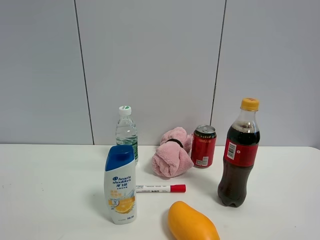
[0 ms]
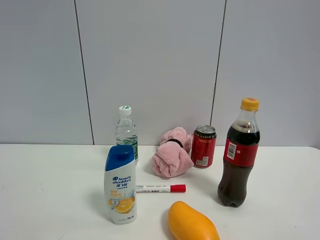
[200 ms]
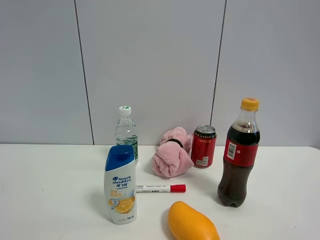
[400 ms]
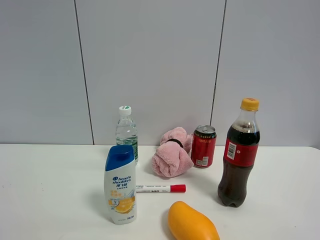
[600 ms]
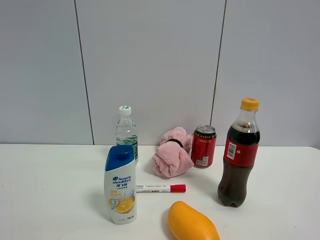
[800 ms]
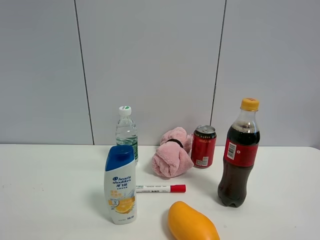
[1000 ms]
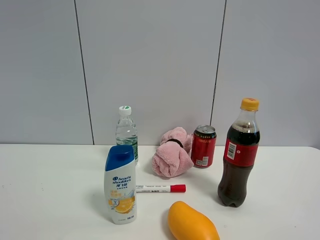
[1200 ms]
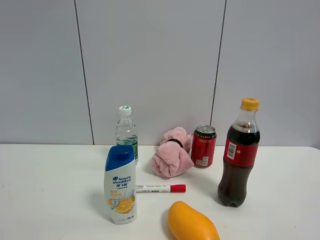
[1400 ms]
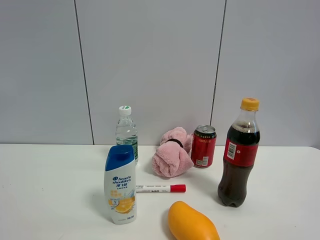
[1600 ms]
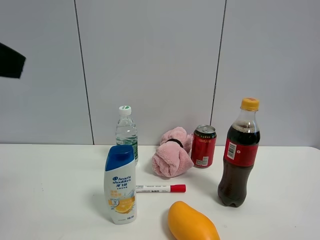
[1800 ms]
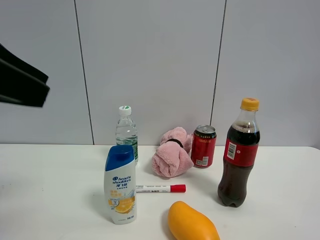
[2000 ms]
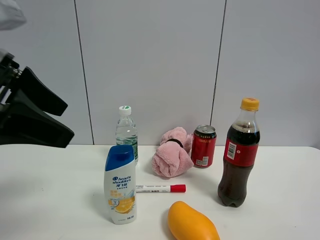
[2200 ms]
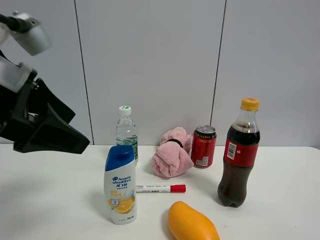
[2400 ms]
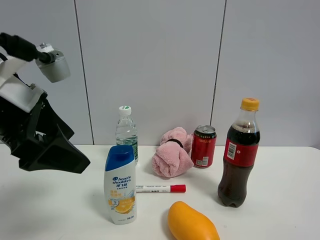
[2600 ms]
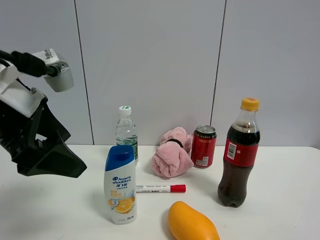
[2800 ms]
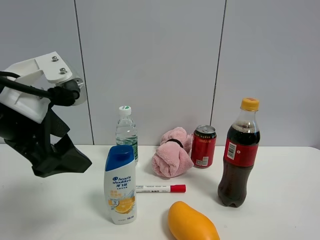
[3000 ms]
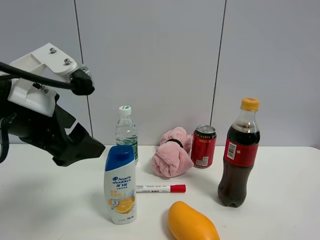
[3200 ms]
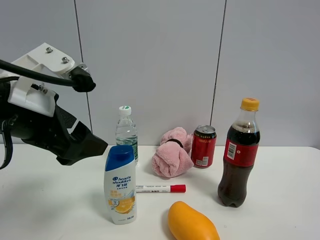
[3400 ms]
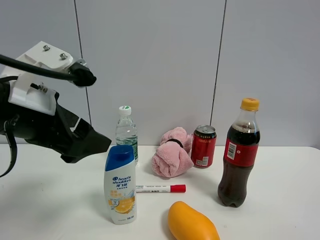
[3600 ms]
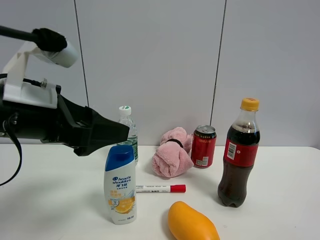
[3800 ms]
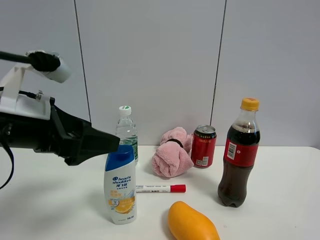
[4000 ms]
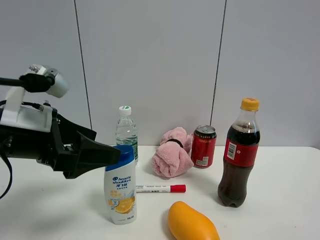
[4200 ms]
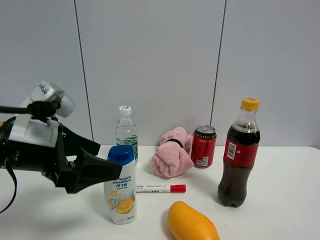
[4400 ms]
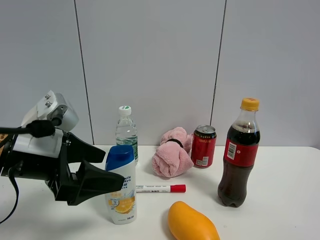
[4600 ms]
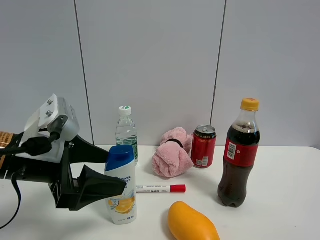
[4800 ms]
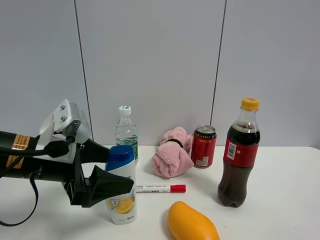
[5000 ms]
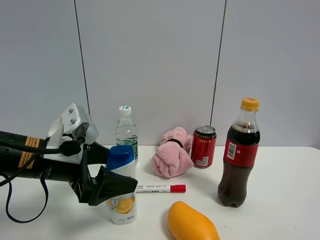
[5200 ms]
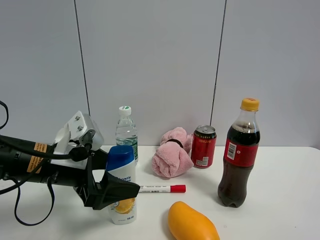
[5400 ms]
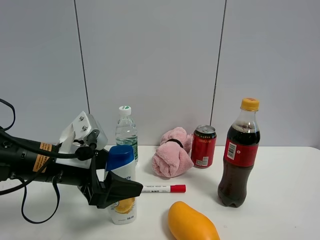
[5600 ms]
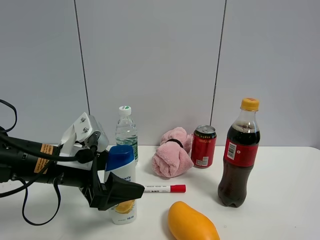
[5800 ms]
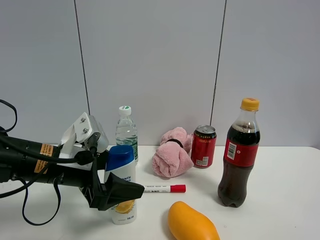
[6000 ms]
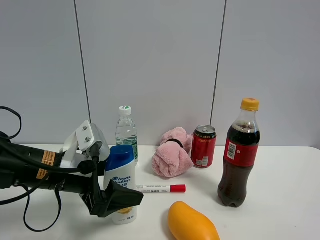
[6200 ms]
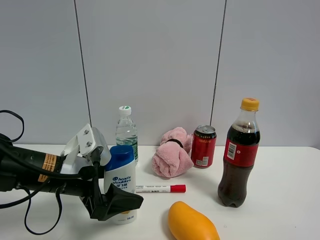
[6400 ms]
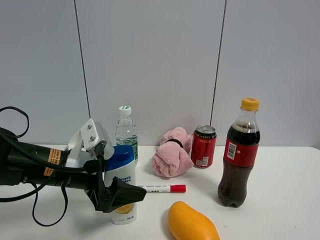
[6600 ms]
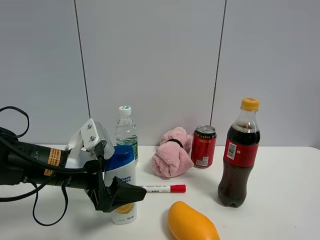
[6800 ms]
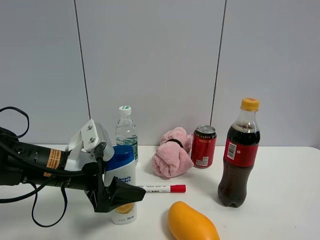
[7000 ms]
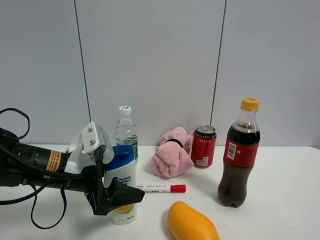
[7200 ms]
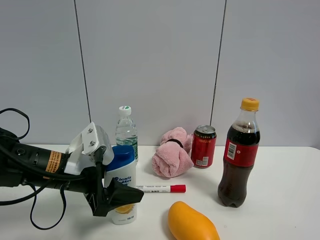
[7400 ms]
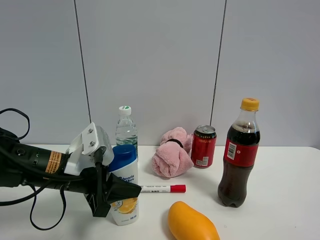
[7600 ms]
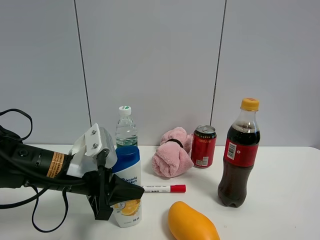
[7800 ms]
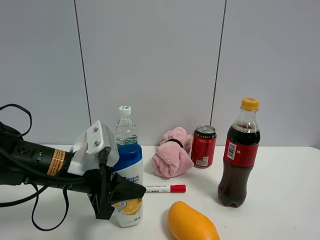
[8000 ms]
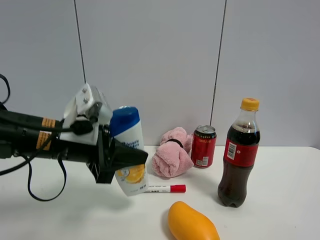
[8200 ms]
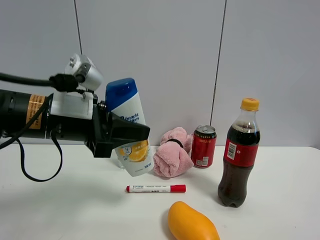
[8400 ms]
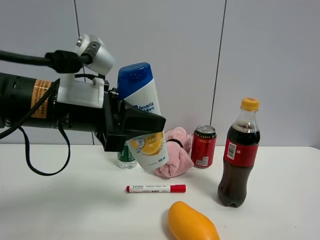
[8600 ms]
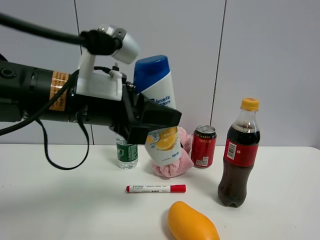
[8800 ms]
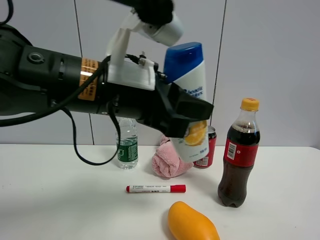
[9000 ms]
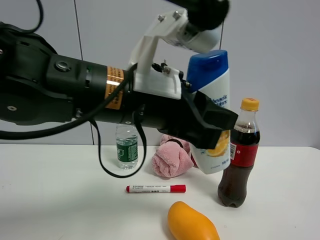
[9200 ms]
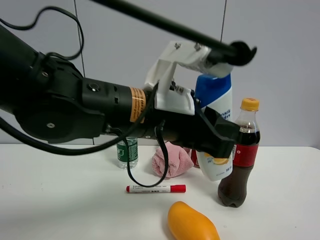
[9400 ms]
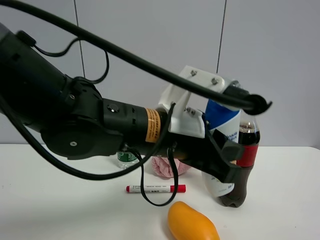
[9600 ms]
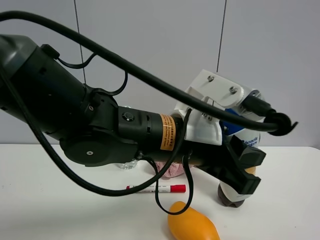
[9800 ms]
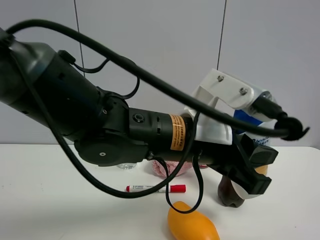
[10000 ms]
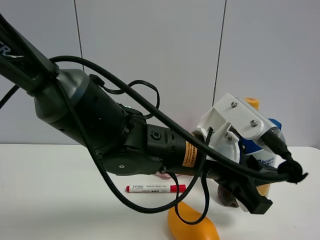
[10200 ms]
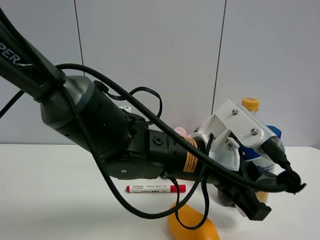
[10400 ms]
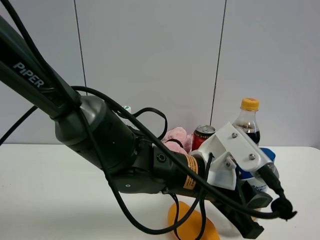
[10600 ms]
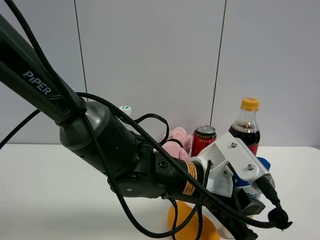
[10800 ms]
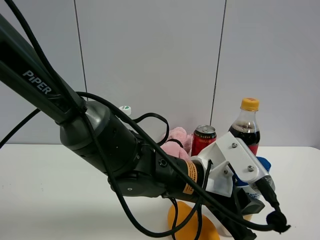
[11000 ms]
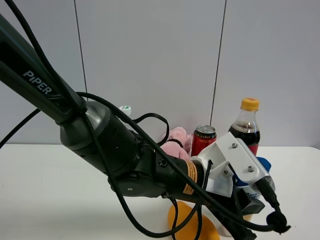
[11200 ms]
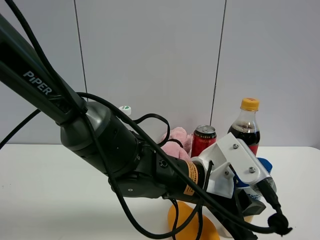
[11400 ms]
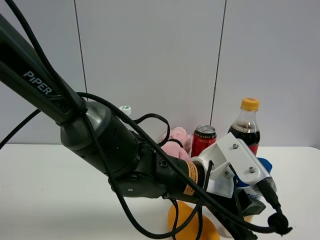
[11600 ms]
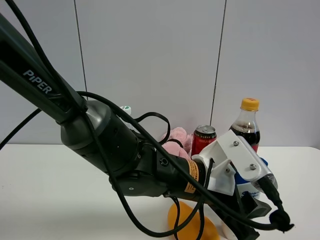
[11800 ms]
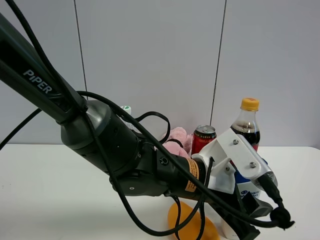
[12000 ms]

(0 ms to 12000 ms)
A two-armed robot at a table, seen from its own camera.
Task of the whole recording: the gripper move the object.
Step, 0 ms - 7600 ms: Grasp the shampoo with the left gripper.
1600 ms - 3000 ms: The left gripper moves downward, forward and to the right, roughly 15 cm.
3000 ms - 4400 ms: The left gripper shifts some 5 cm downward.
4400 ms - 6000 ms: The left gripper moves downward, about 5 cm.
6000 ms - 7600 ms: The left gripper closes.
7600 ms - 9000 ms: The left gripper travels upward and to the right by about 20 cm.
9000 ms - 10400 ms: The left gripper shifts roughly 15 cm downward and to the right.
10400 ms - 12000 ms: The left gripper opens its fingers.

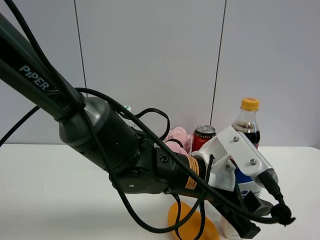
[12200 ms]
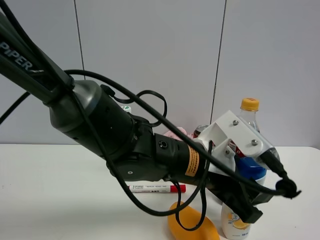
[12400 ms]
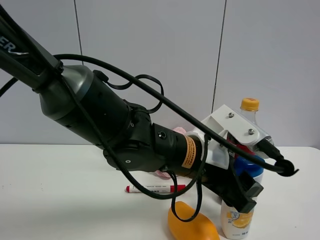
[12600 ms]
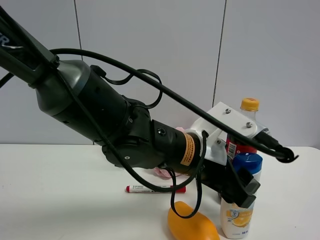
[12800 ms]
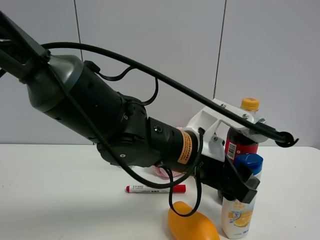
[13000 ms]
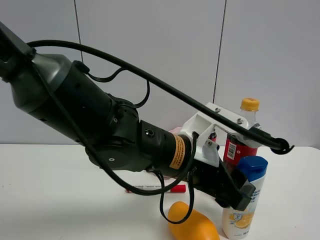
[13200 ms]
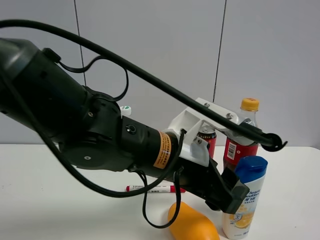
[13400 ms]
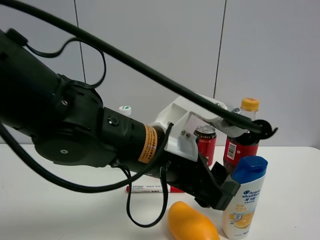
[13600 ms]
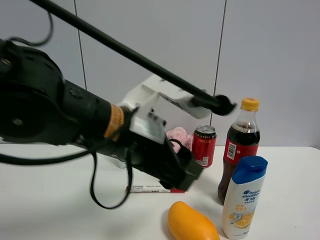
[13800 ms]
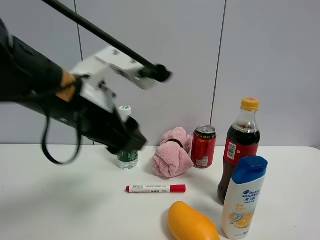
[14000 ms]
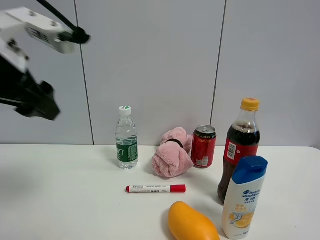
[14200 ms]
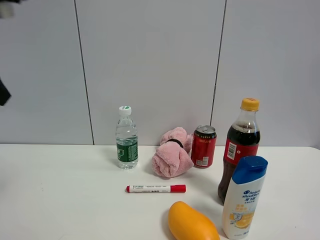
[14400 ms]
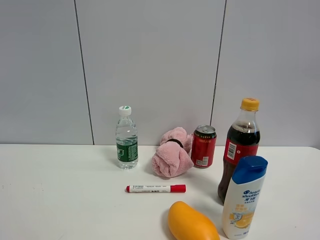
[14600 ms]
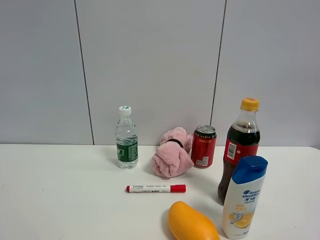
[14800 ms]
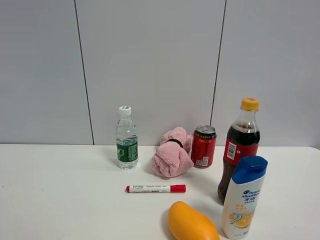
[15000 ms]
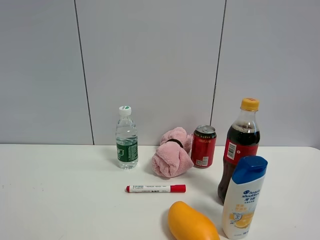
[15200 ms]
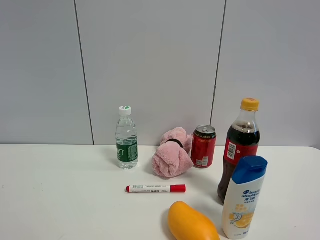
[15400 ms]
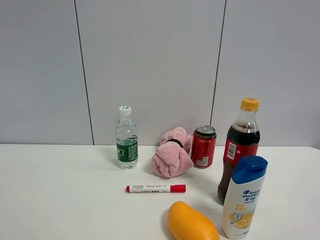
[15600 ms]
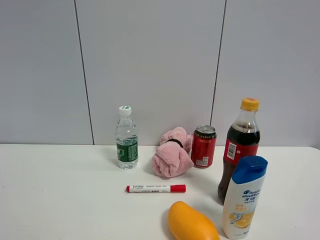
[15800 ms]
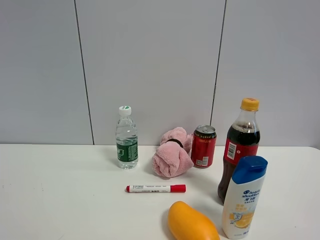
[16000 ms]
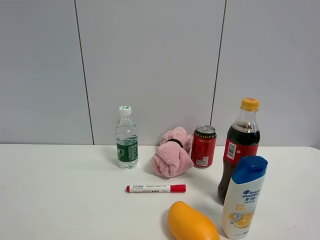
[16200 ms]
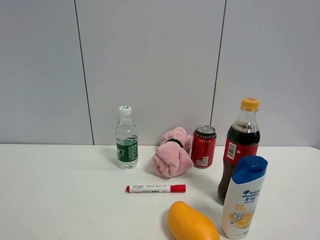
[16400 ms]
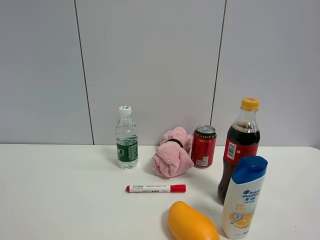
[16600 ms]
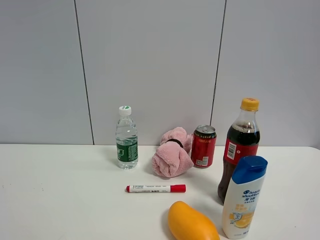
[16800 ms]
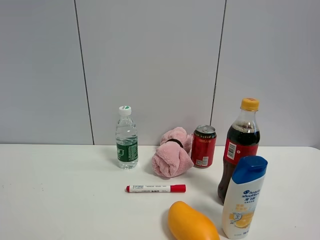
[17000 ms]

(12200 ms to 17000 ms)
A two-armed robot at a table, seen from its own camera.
Task of the whole recording: the gripper move the object.
12200 ms - 13800 ms: The left gripper goes about 15 cm to the left and upward.
13800 ms - 15400 ms: The left gripper travels to the left, backward and upward by approximately 35 cm.

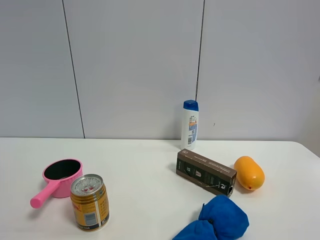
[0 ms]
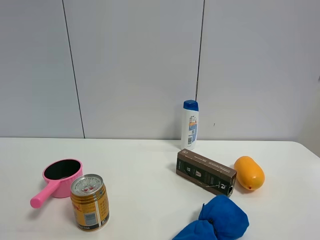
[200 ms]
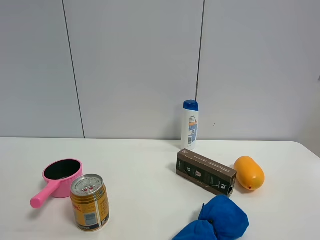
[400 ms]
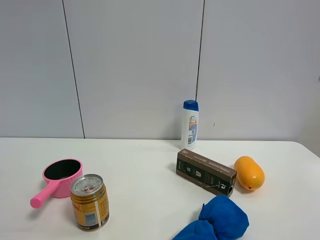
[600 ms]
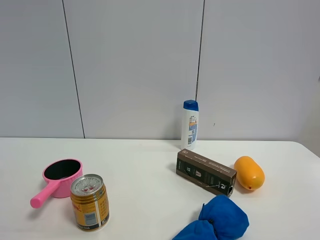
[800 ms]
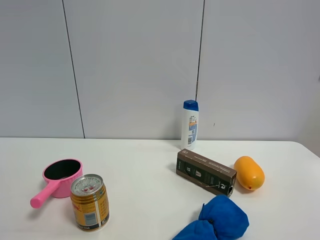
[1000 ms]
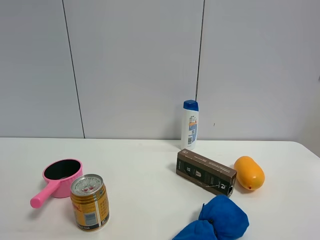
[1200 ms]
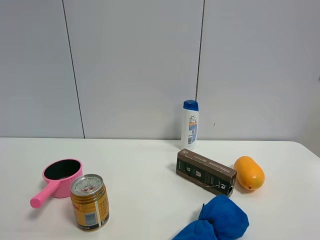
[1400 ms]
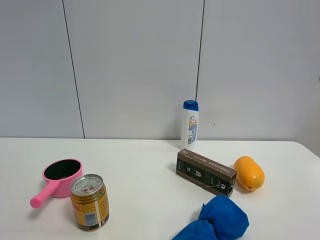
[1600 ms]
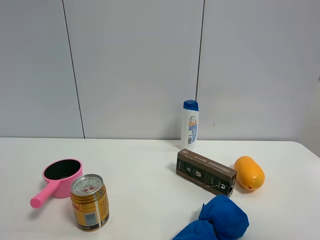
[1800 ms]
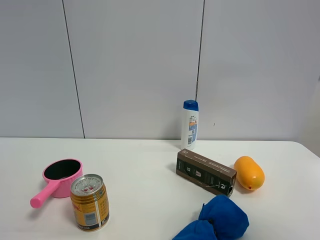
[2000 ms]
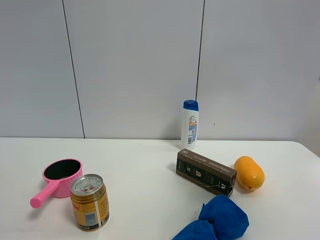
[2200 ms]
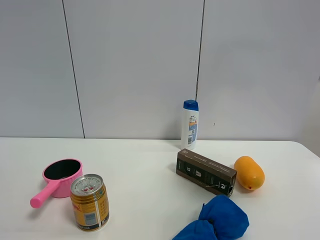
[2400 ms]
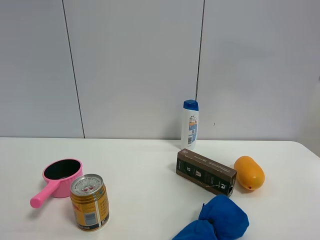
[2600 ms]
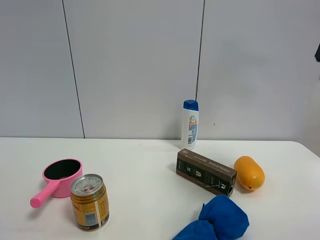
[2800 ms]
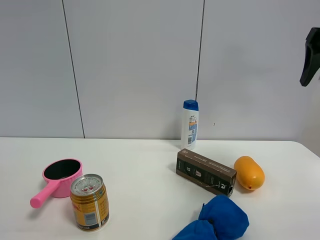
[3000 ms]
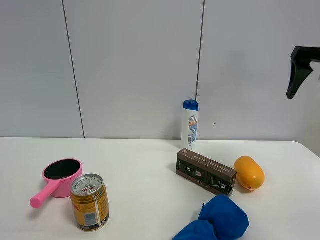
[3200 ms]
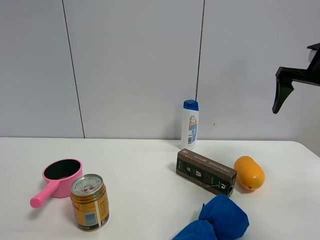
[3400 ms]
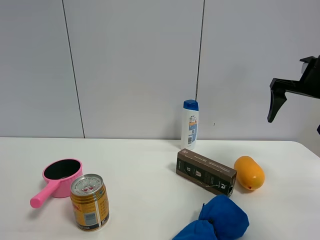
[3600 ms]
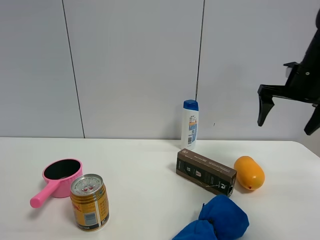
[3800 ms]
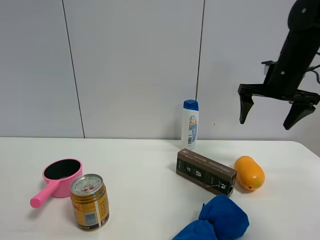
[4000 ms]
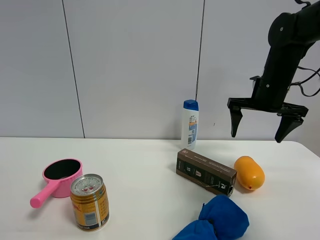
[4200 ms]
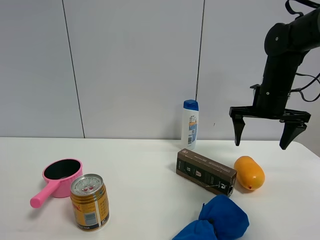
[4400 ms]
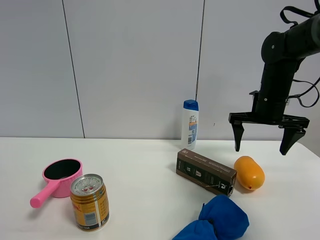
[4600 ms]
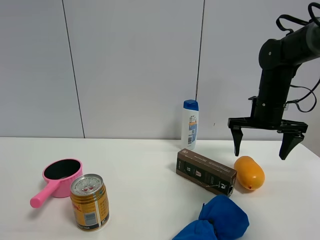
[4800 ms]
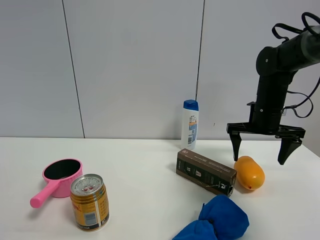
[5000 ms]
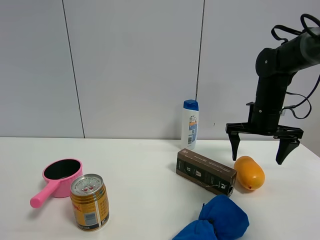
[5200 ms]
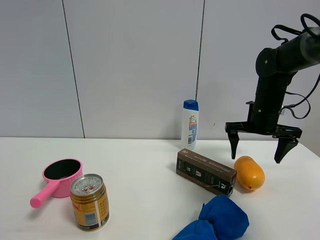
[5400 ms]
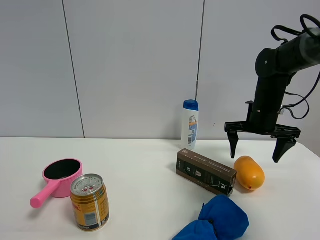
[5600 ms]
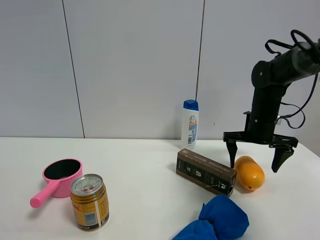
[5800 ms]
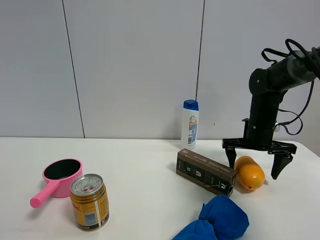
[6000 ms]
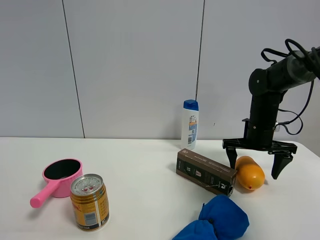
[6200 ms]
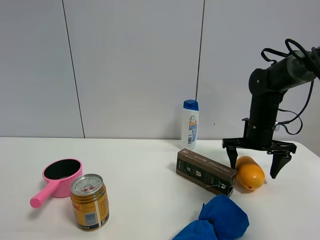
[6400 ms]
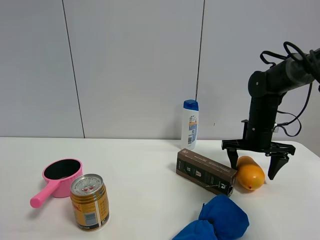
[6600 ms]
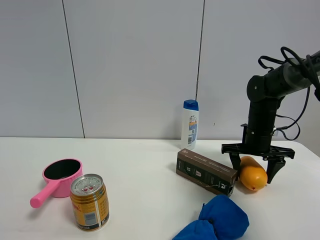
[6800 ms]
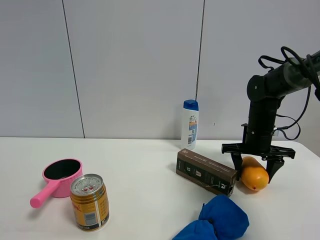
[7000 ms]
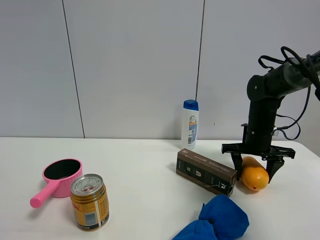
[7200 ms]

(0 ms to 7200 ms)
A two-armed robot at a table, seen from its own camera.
Task of the whole recording: the gripper move the object.
Step, 0 ms - 6800 ms: Grasp the mango with the right gripper.
0 ms - 1400 ms: The two grippers keep their place.
1400 ms - 2800 ms: The right gripper heads forward, covering about 30 cm.
2800 ms - 4400 ms: The right gripper moves downward and forward, approximately 25 cm.
4400 ms - 5800 ms: The right gripper goes approximately 5 cm downward.
5800 ms - 7200 ms: The right gripper closes.
